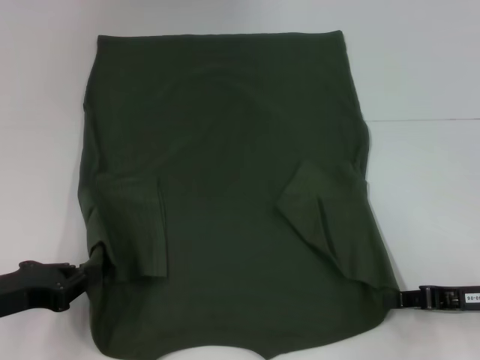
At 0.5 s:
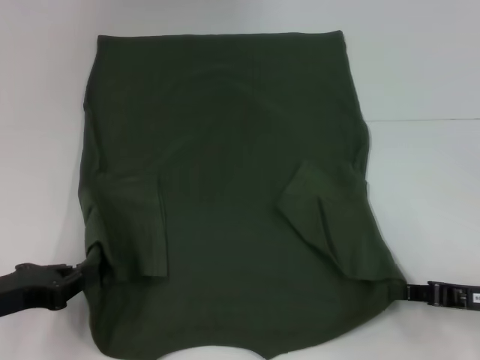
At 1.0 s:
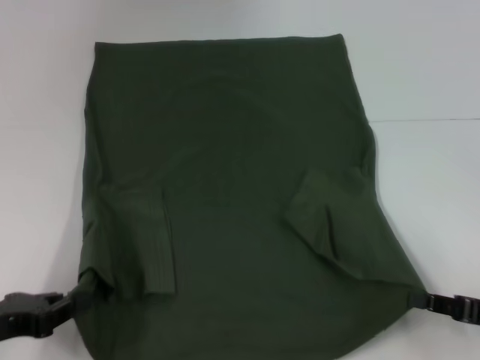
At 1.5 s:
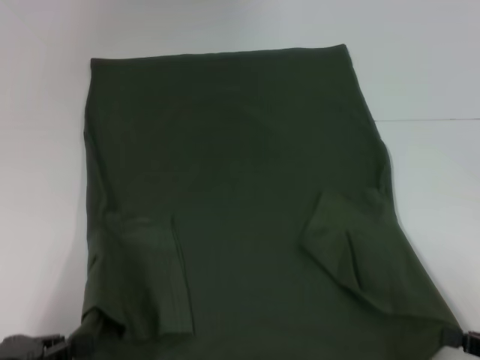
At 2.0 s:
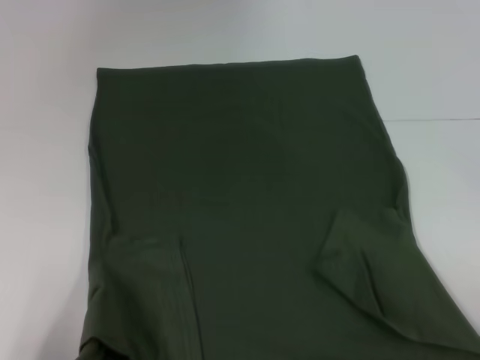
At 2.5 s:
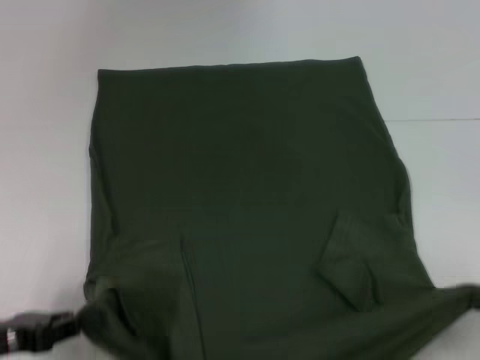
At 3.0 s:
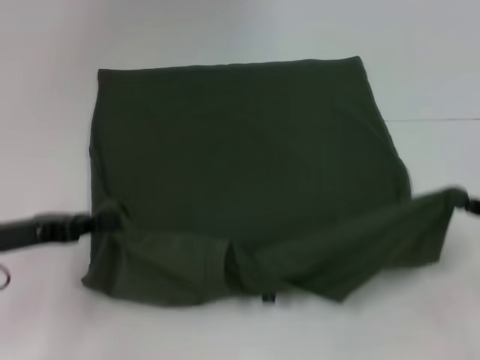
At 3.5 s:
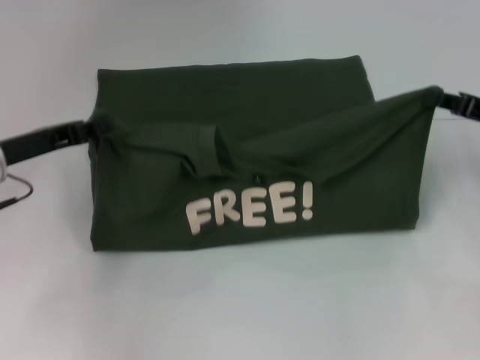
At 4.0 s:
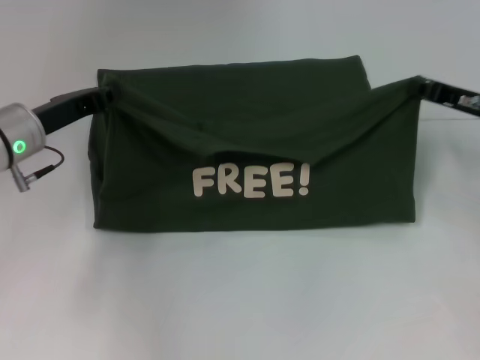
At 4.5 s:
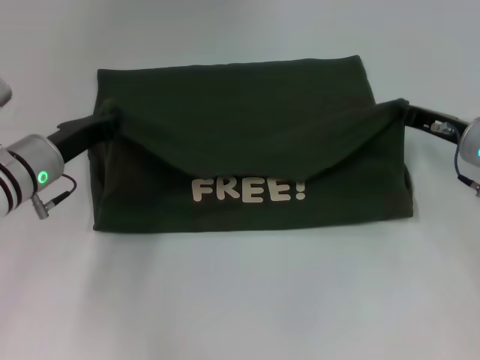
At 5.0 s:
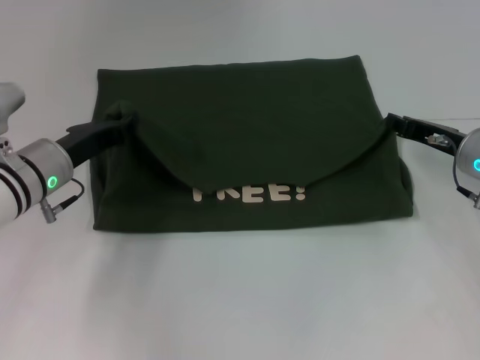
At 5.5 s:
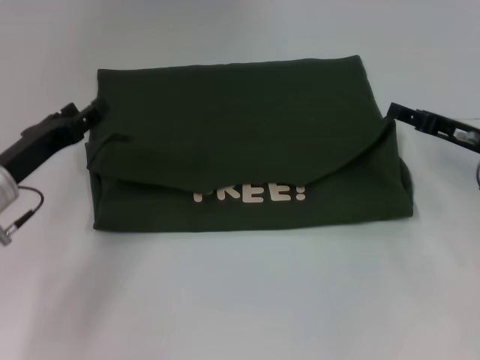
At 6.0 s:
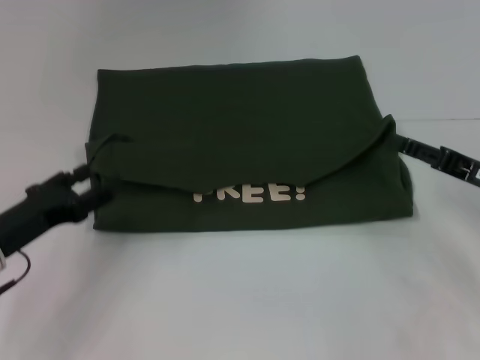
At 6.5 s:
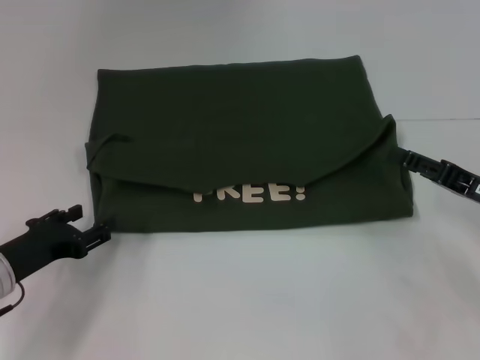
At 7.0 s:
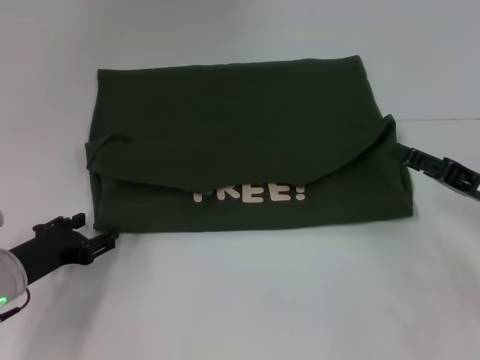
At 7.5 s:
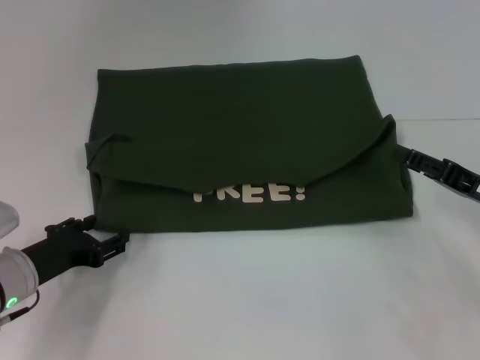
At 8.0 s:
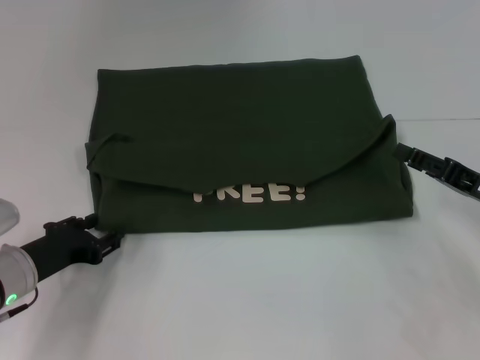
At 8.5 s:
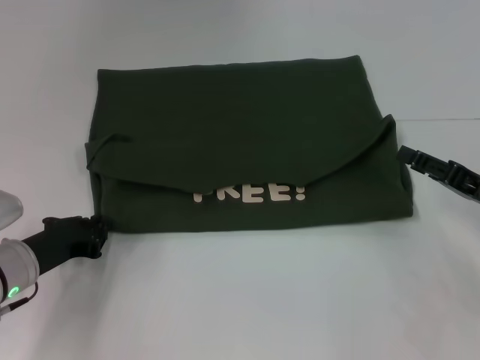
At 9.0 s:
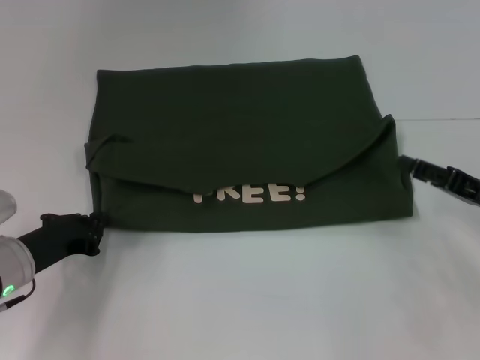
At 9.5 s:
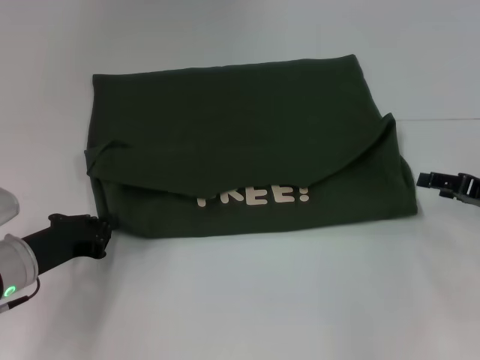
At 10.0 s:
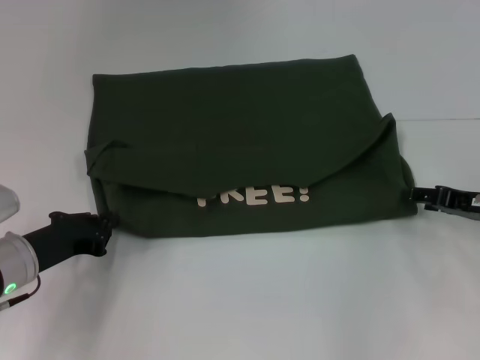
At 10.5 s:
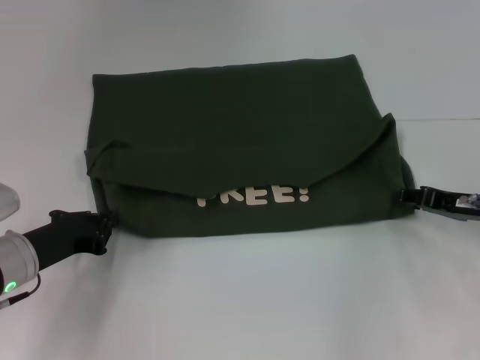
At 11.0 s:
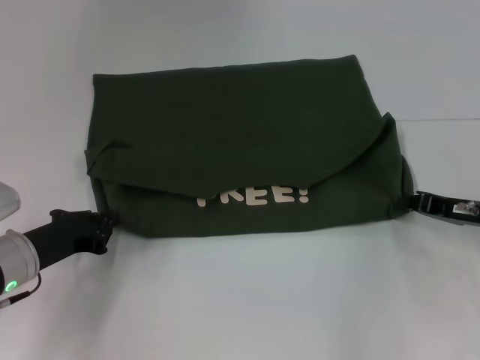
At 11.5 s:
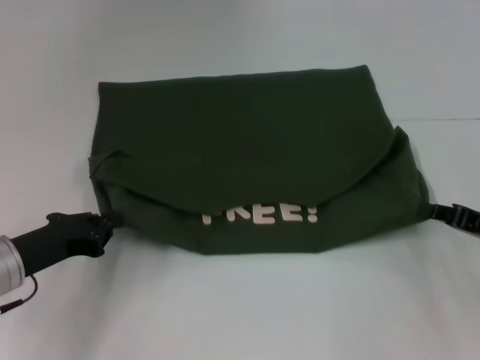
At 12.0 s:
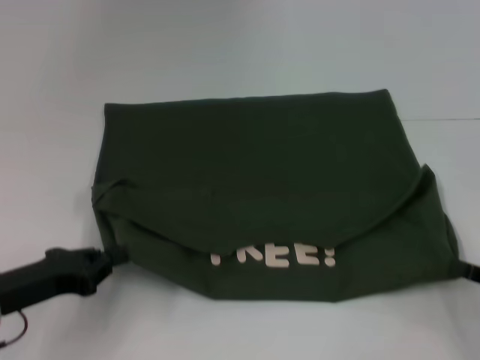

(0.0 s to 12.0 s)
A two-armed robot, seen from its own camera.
Step, 1.5 s - 5.5 s: Fold the clothes with your left hand.
Step, 1.5 s - 5.5 s: Fold the clothes with your right hand.
0.0 s - 2.0 s: The left gripper travels backward by some 10 cm. Meanwhile the right gripper goes some 15 cm backward and to the right.
2.0 s - 4.0 s: Both grippers move forward, approximately 25 cm.
4.0 s - 6.0 s: The right gripper goes about 10 cm backward, and opens its fingers, while the left gripper is displaced backward and downward by about 15 cm, and opens up.
8.0 s - 10.0 s: The left gripper closes up.
10.0 s - 12.0 s: The left gripper travels backward by some 5 cm, while the right gripper moves backward, about 10 cm, and closes.

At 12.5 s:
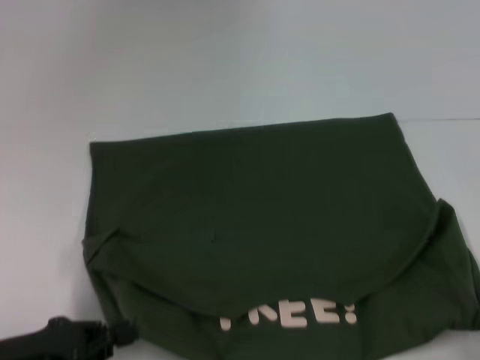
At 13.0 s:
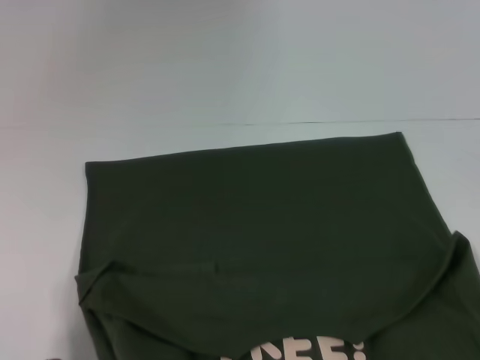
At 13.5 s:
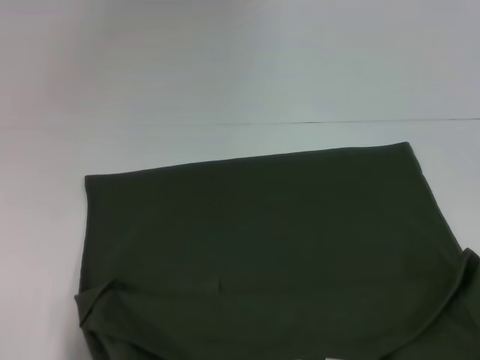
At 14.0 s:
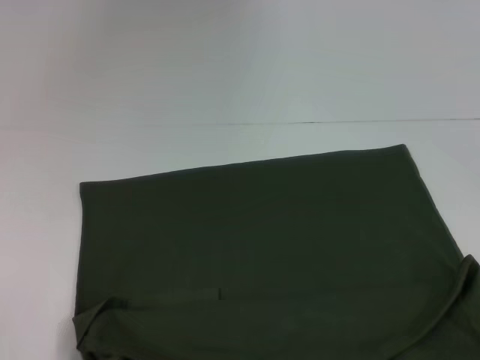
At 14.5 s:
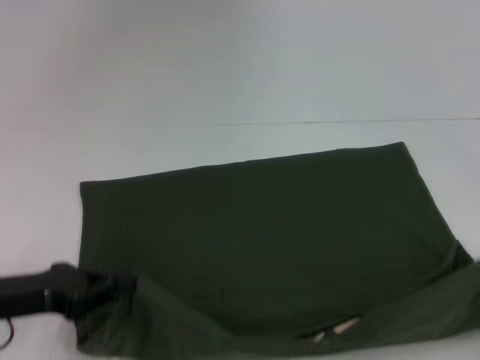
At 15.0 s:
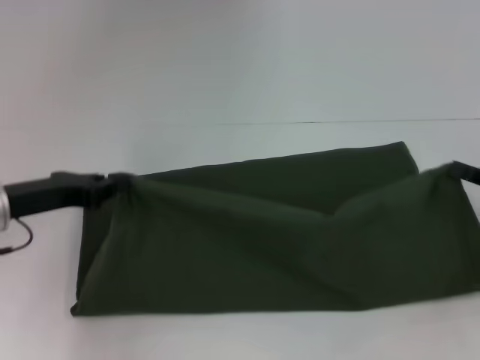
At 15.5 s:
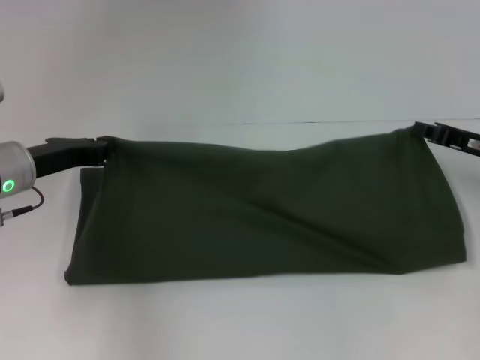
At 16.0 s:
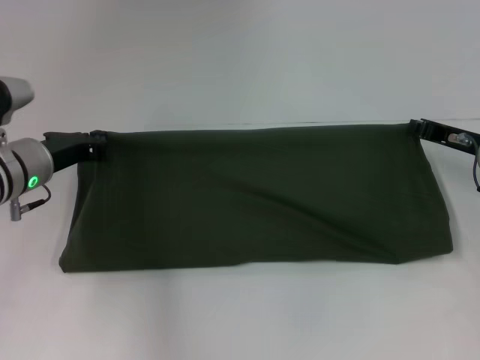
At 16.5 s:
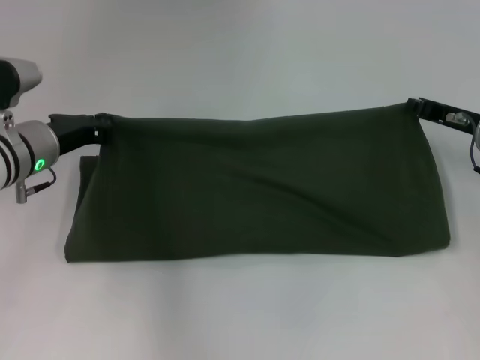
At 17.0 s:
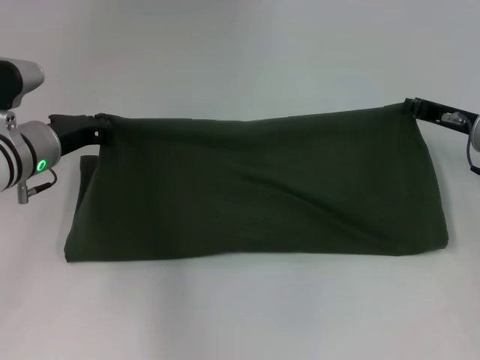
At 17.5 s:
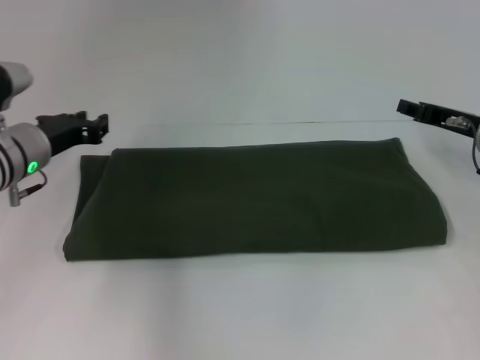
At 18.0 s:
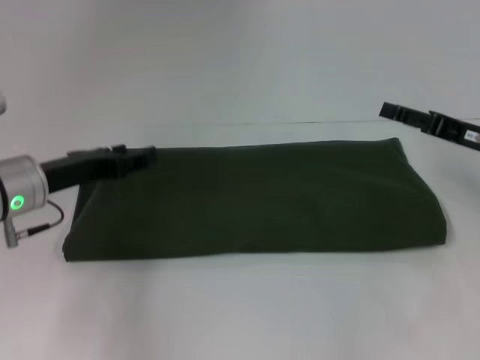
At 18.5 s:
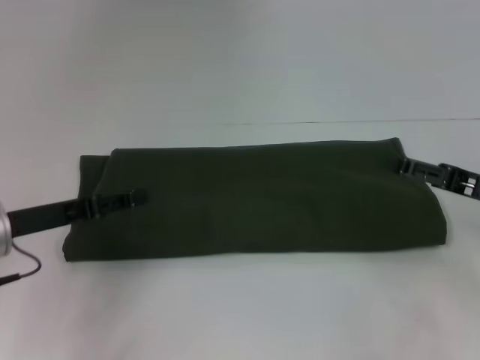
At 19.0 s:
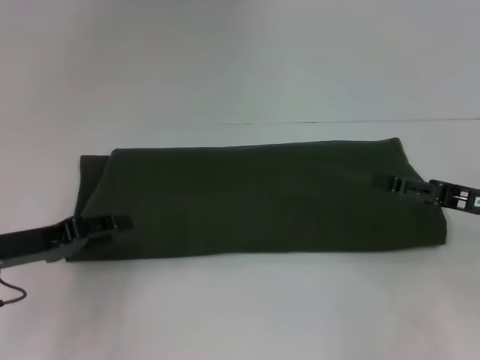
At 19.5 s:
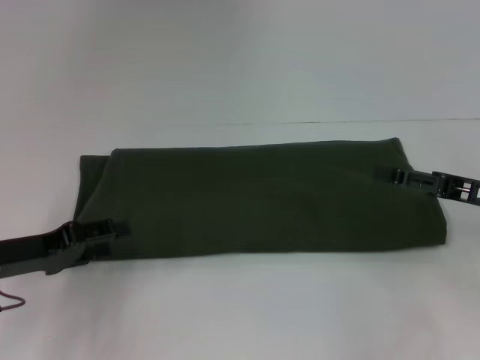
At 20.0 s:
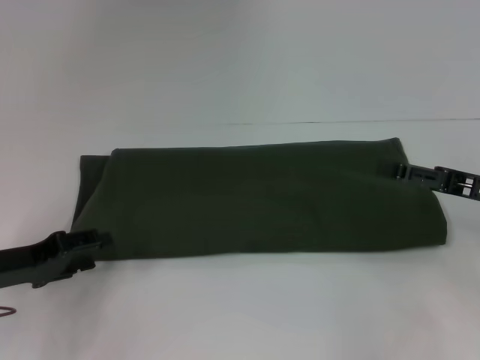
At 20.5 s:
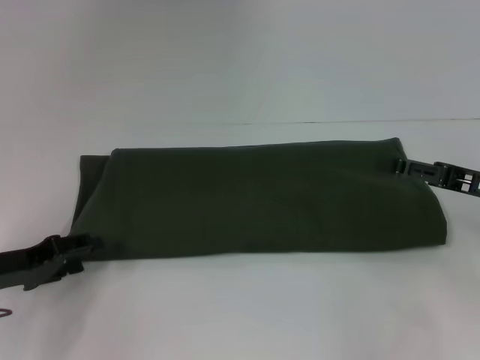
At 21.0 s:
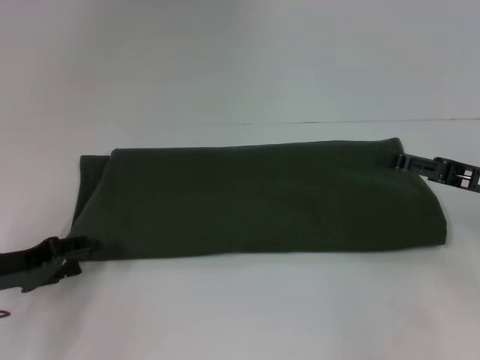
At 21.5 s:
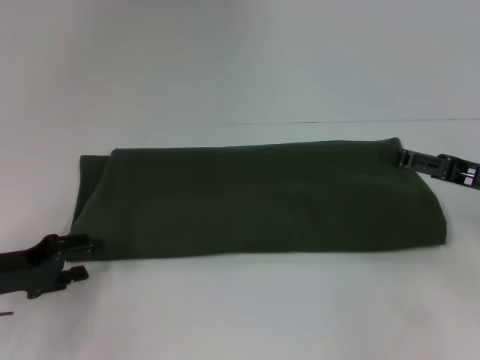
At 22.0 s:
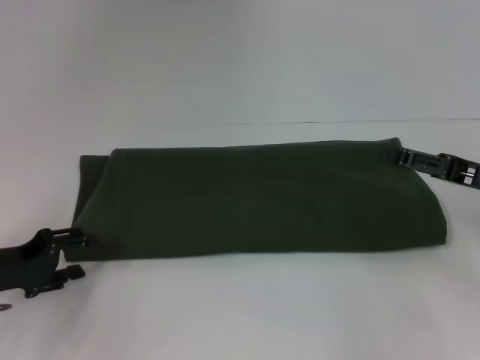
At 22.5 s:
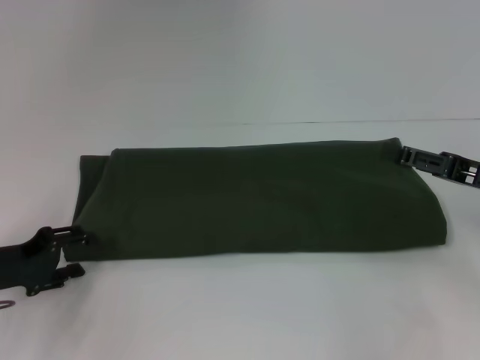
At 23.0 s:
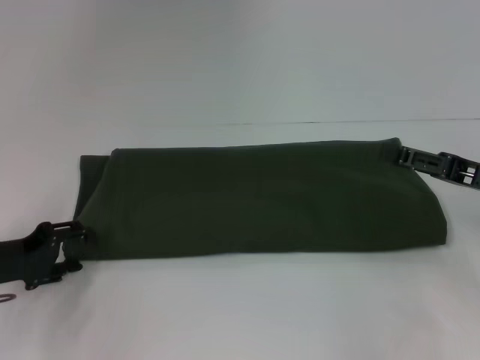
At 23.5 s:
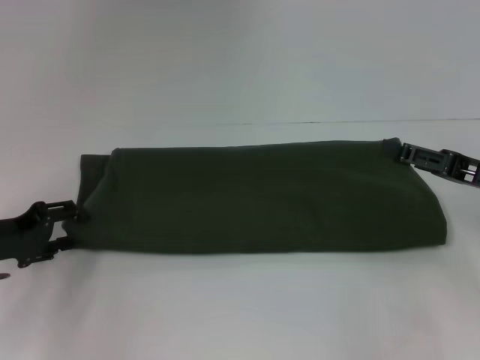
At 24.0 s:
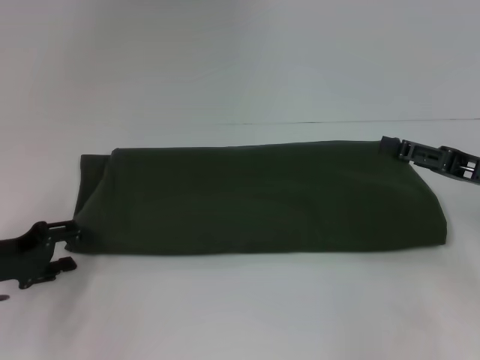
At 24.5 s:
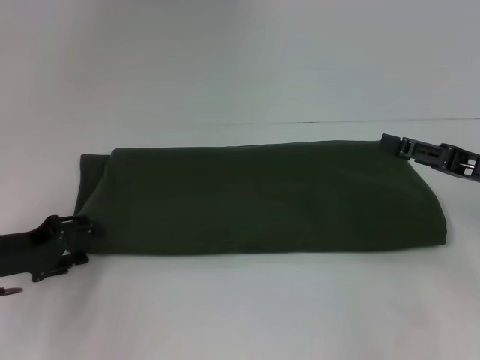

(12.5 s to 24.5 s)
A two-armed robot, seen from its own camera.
Step, 13.0 s - 17.5 s: Fold the clothes with your right hand.
12.5 s - 14.5 s: The right gripper moves approximately 10 cm backward and comes back. The left gripper heads forward, covering some 5 cm.
14.5 s - 16.5 s: The left gripper shifts about 15 cm forward. The right gripper heads forward and to the left, covering about 25 cm.
16.5 s - 18.5 s: Both grippers travel together backward, approximately 10 cm. The left gripper opens; the right gripper opens.
18.5 s - 20.5 s: The left gripper ends up some 5 cm from where it was.
20.5 s - 24.5 s: There are only small adjustments of the grippers.

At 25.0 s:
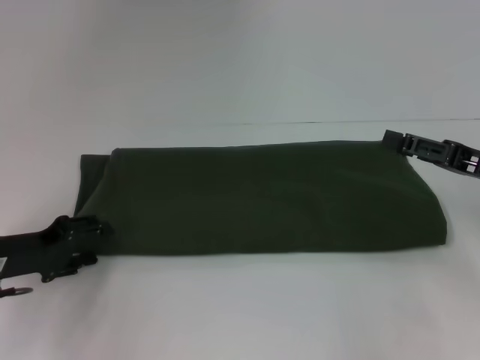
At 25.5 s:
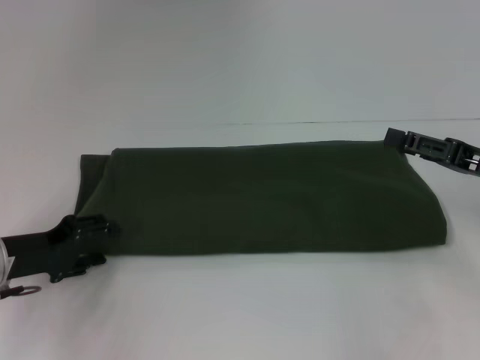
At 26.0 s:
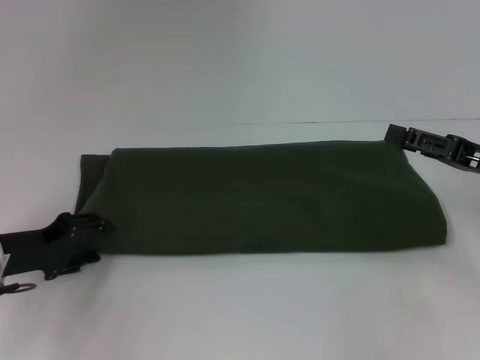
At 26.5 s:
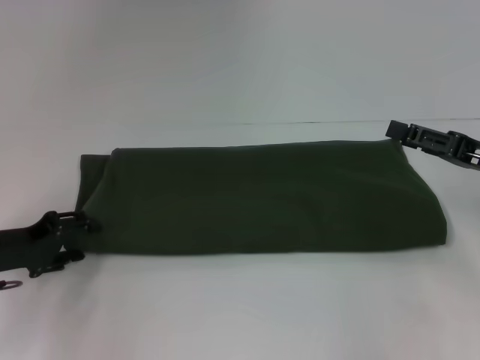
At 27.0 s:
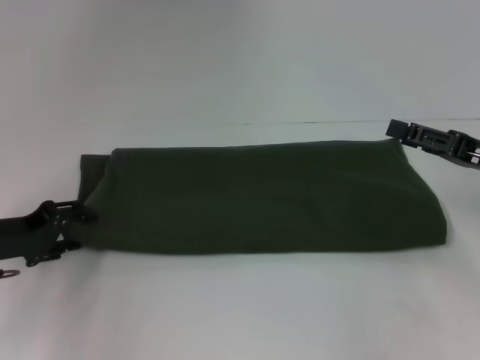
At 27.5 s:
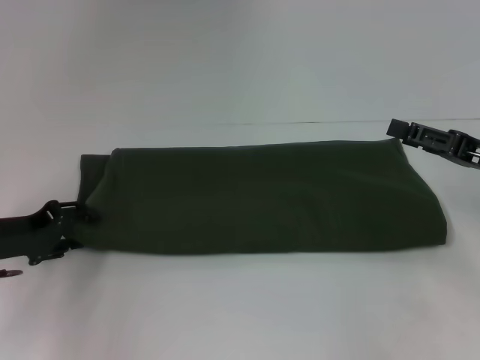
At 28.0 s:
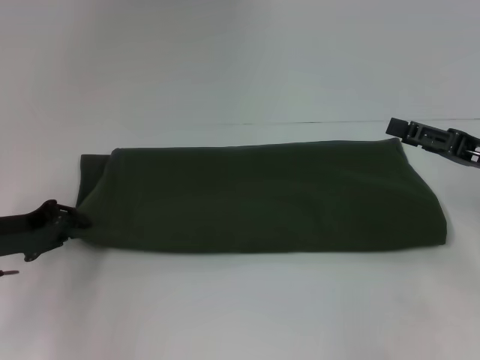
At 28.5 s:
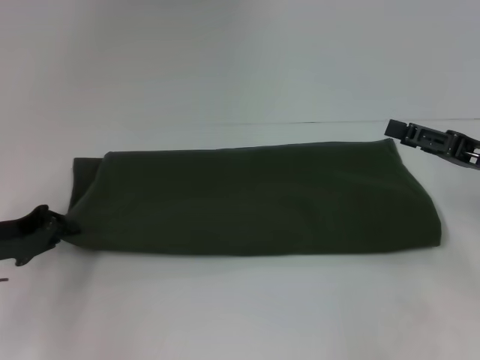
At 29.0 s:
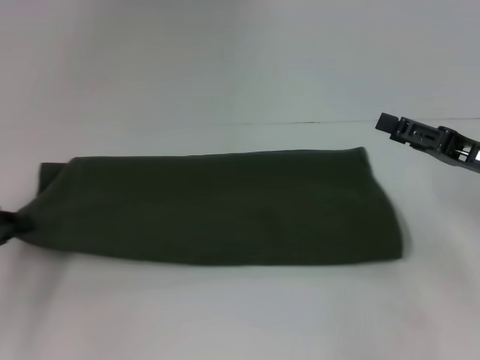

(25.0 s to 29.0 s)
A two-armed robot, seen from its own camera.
25.0 s - 27.0 s: The grippers stay close to where they were, moving slightly.
27.0 s - 29.0 s: The left gripper shifts roughly 5 cm to the left, and closes up.
